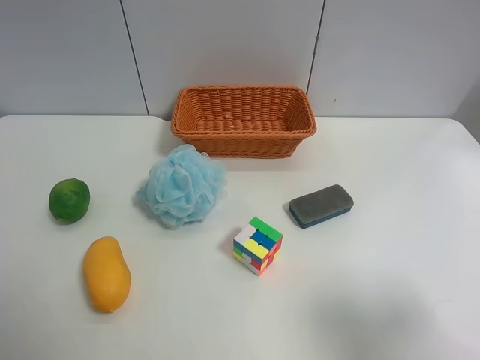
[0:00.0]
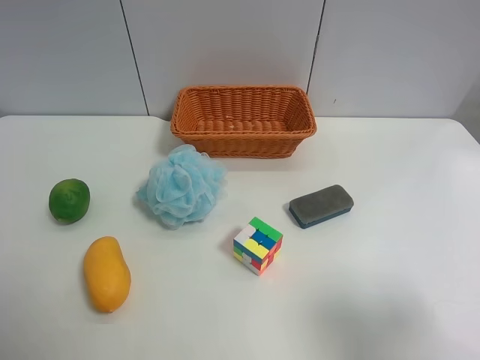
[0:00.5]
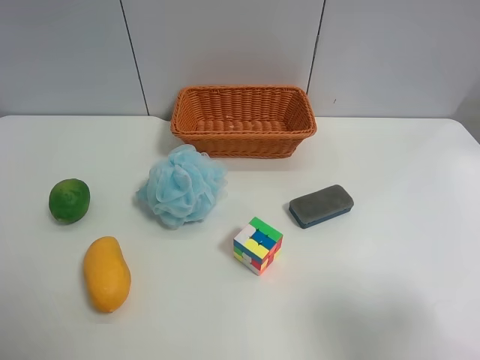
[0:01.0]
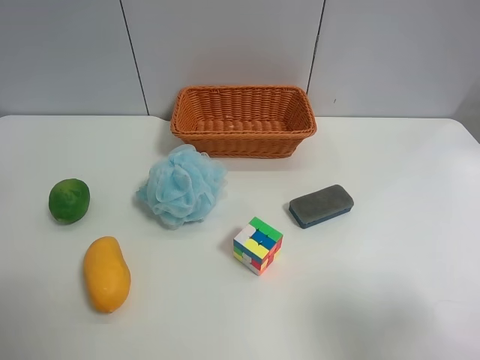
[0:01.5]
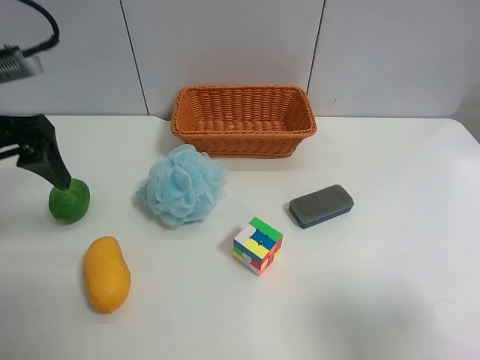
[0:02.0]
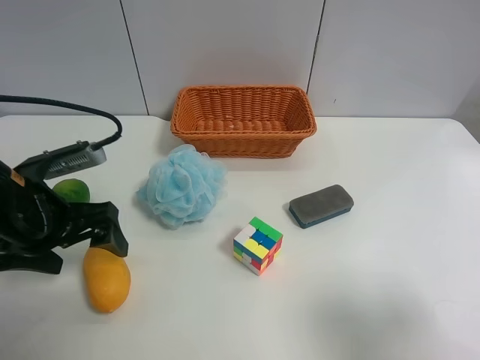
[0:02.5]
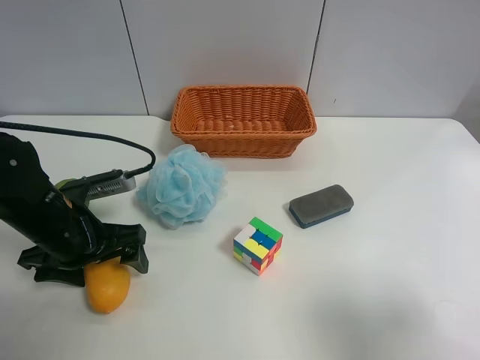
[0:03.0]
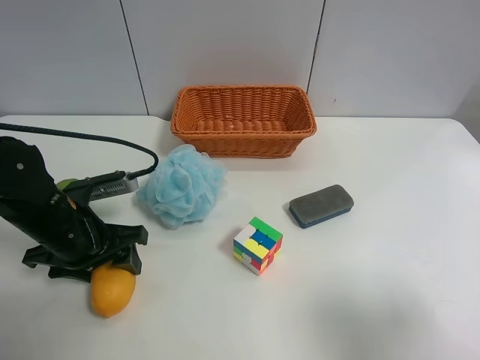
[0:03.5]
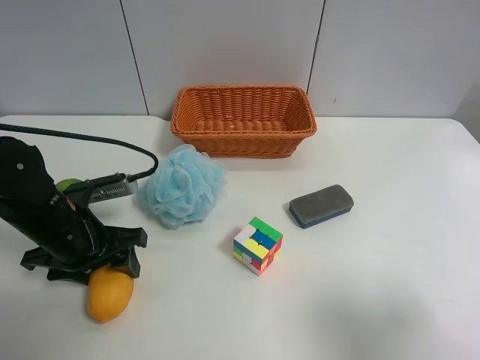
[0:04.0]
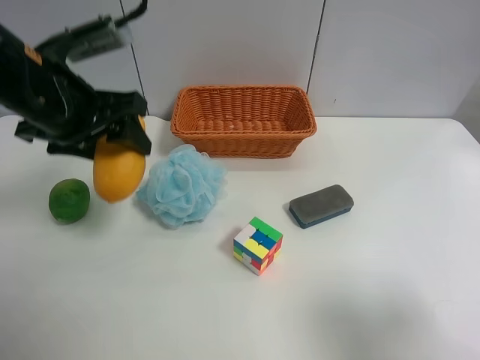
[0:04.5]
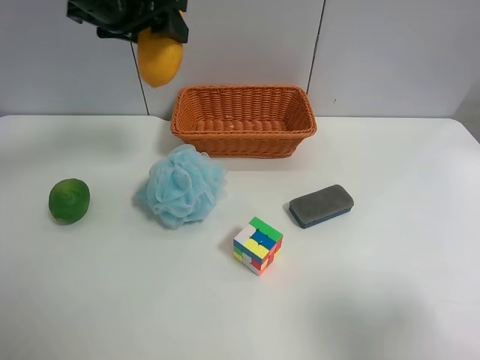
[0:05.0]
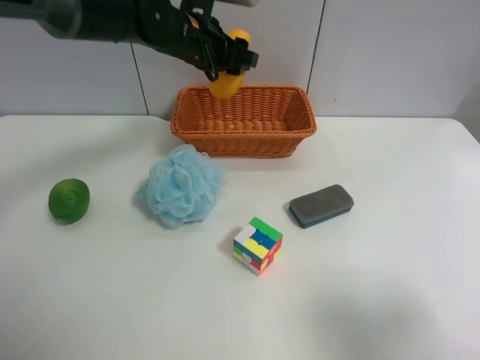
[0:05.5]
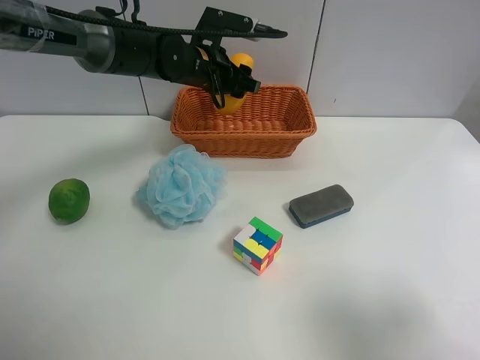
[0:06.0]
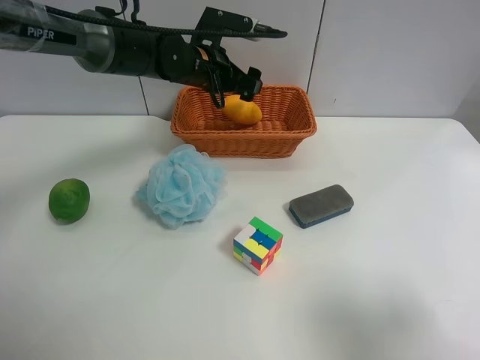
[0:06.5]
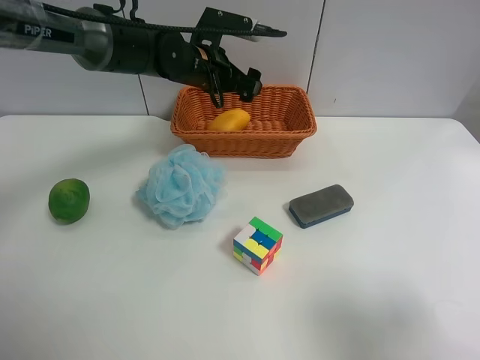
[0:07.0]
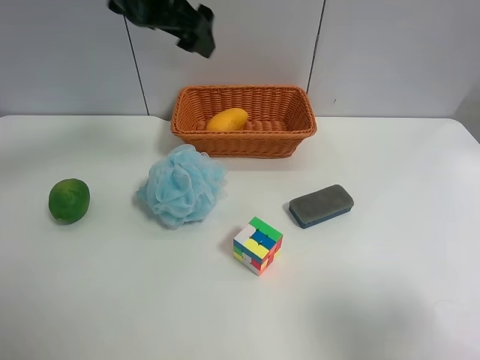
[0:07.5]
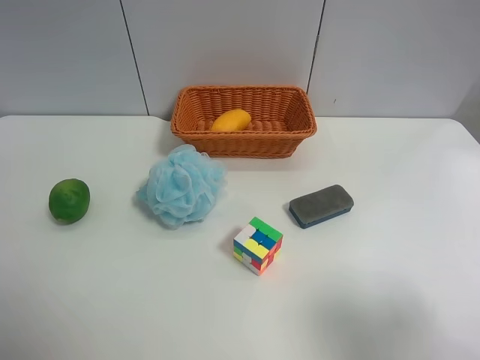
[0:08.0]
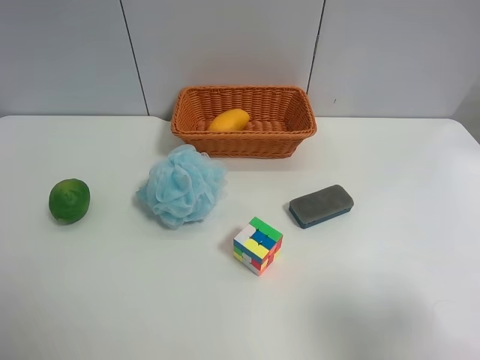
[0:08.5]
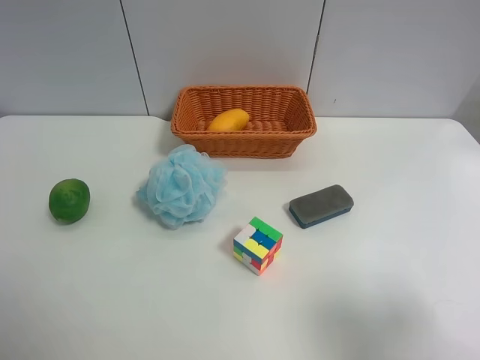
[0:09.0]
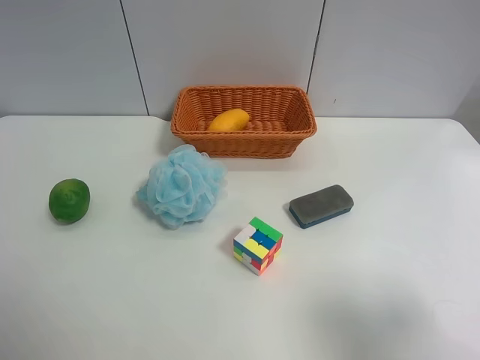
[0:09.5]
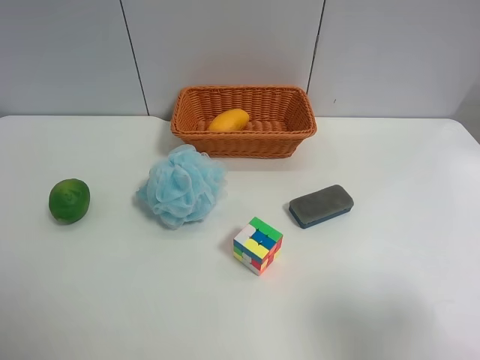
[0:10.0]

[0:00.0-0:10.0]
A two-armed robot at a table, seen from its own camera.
Task of the whole recording: Randomly grab green lemon or mangoes from the table and put them in a basket.
Step, 0:00.0 to 0:04.0: Grasp the mango with the left gripper.
Step, 0:04.5 to 0:06.5: Place the mango into the basket with the left gripper.
0:00.0 to 0:02.0: The left gripper goes some 20 cm forward.
0:02.0 to 0:04.0: The left gripper moves downward, roughly 15 cm, and closes up.
0:04.0 to 0:06.0: The left gripper shifts roughly 25 cm forward and to the right.
0:06.0 to 0:08.0: The left gripper moves backward, upward and to the left, some 50 cm, and opens.
